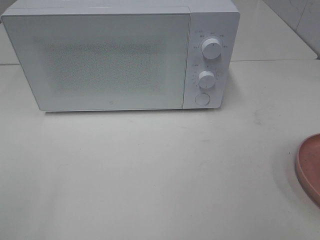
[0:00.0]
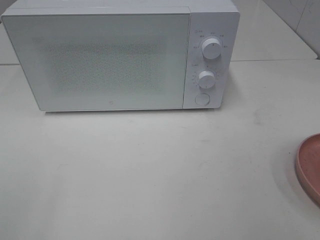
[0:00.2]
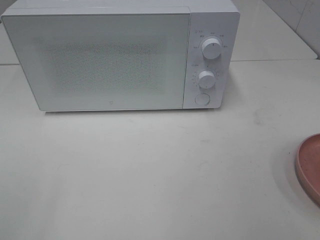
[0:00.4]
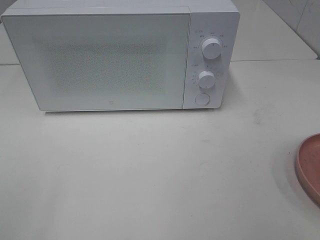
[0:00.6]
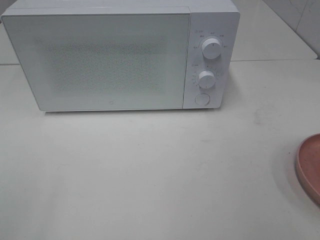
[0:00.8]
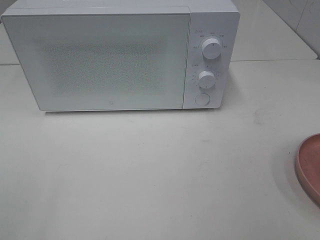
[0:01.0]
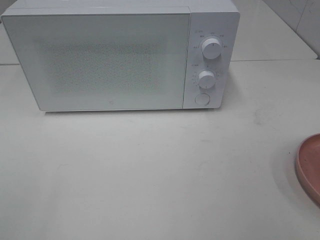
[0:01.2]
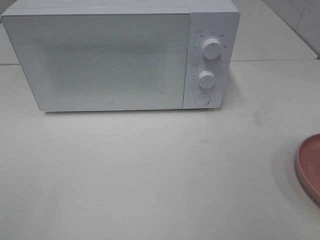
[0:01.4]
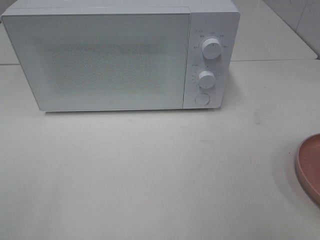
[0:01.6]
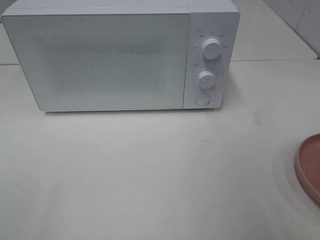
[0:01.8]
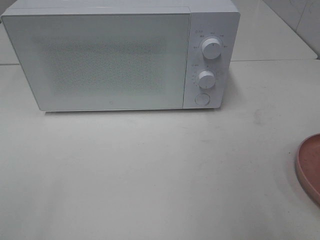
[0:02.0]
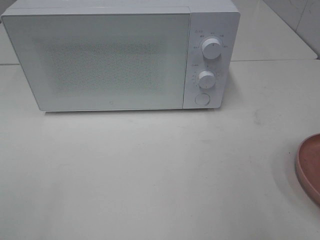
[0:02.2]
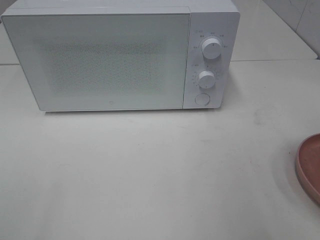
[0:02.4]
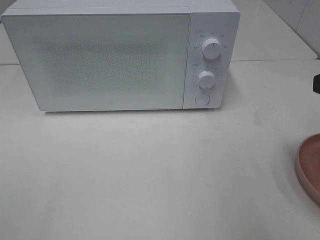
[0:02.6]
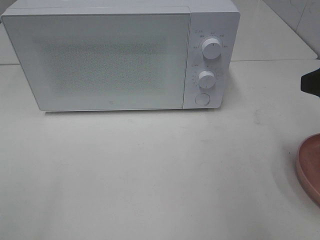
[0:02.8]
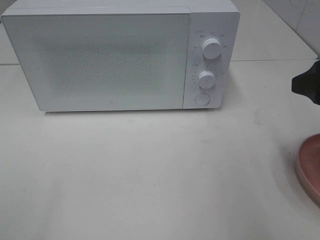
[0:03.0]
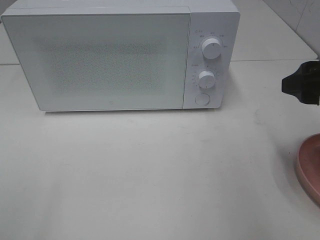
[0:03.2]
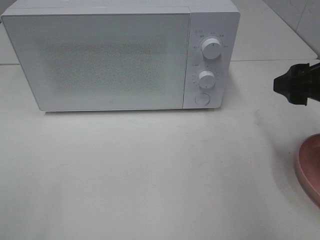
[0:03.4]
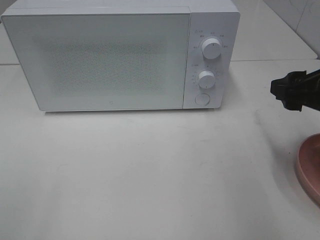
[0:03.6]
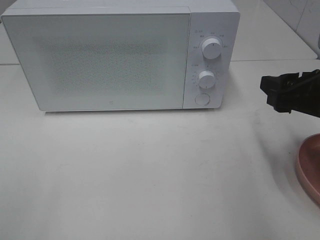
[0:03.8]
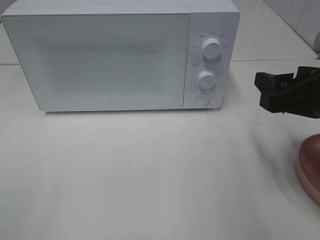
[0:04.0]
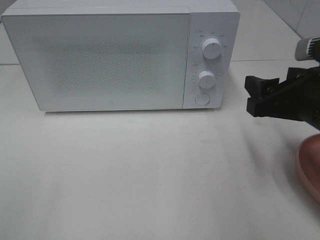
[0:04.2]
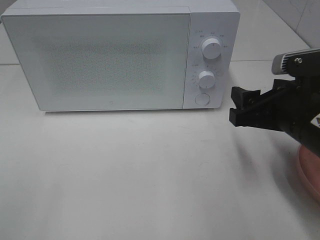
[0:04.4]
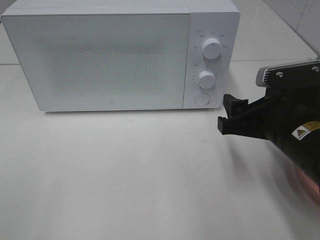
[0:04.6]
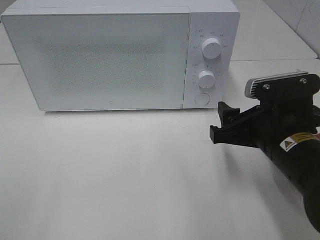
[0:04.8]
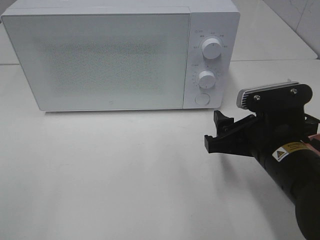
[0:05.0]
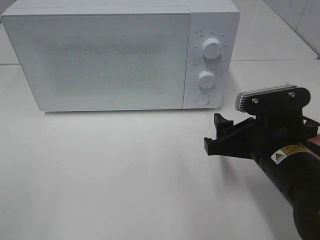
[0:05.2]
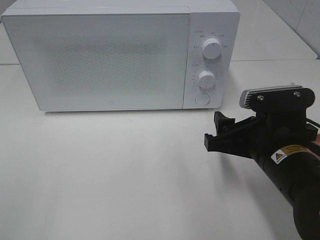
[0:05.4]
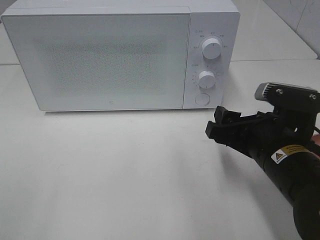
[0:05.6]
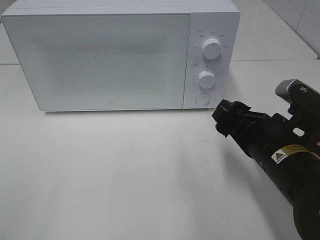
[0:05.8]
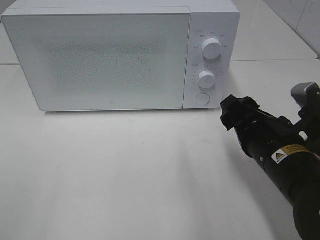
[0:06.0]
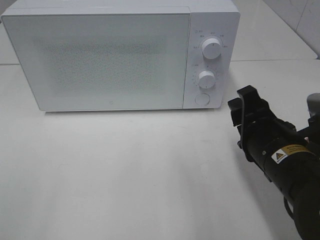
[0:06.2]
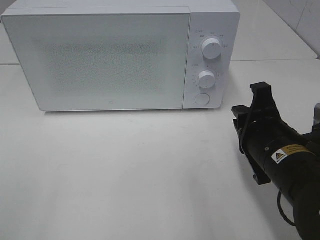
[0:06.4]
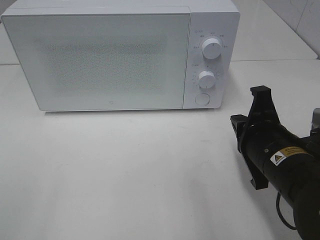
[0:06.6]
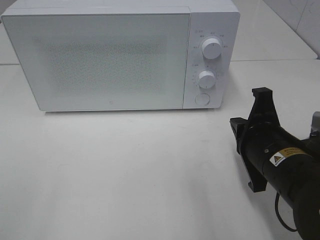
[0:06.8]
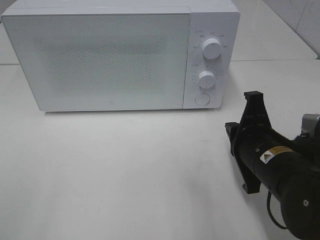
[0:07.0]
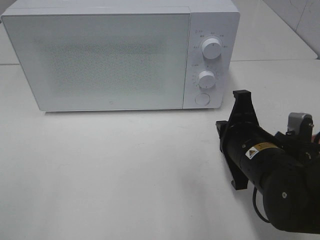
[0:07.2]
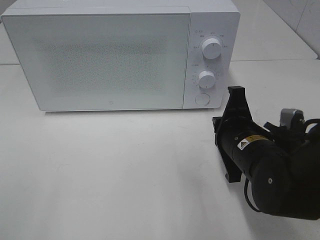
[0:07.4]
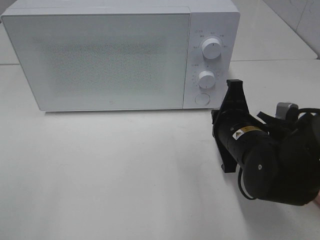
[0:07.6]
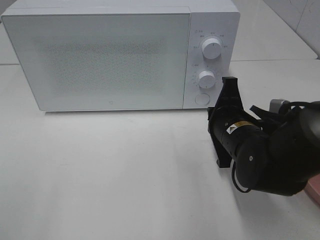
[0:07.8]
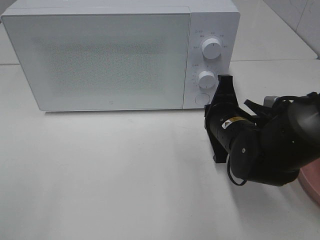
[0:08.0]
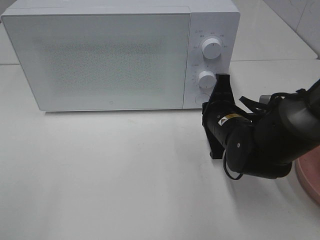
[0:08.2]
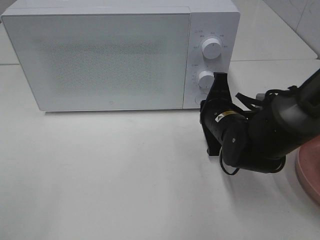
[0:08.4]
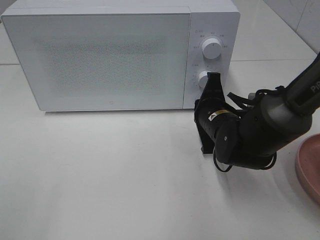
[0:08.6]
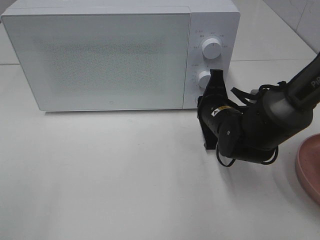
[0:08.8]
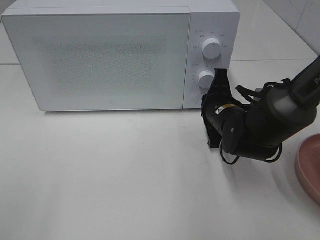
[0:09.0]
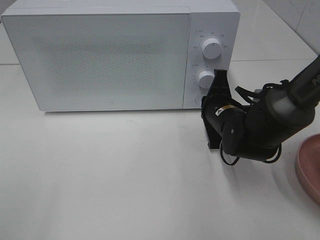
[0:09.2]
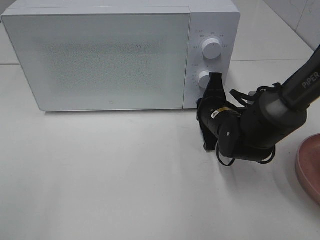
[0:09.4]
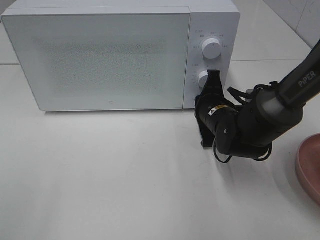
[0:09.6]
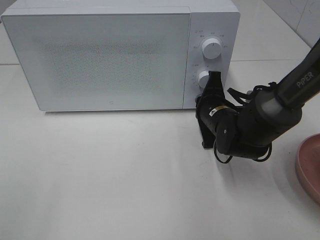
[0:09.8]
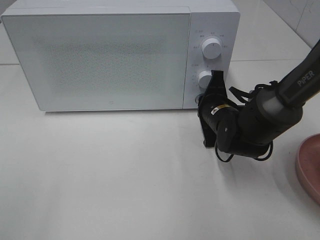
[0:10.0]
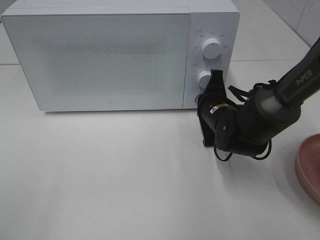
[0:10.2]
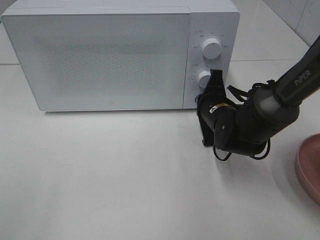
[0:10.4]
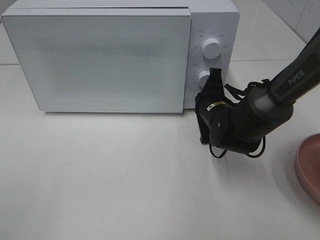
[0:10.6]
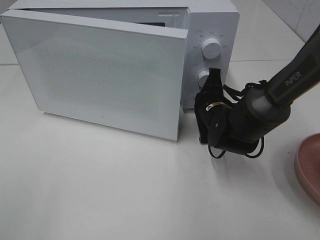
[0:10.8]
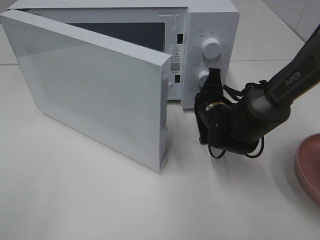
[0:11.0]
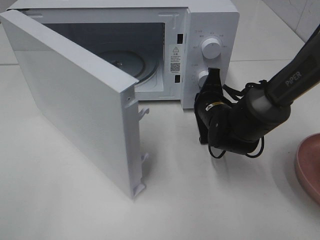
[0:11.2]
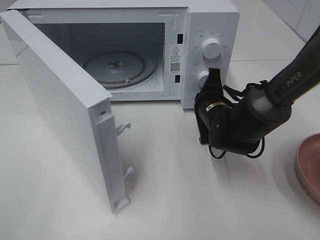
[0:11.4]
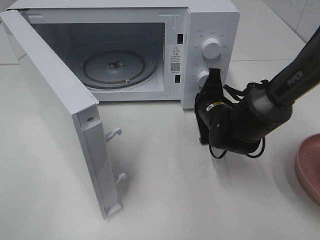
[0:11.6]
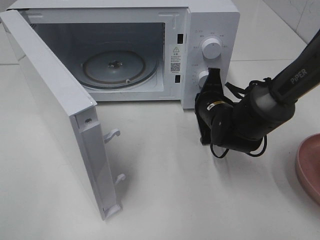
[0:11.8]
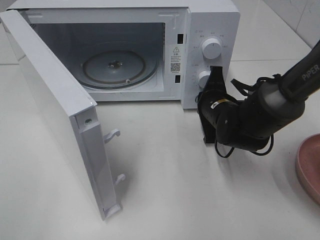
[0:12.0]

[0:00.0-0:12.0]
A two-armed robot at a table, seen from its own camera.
Task of the whole recording: Heat the burger.
0:01.6 to 0:03.0: The right gripper heads forward, covering roughly 15 cm.
0:03.0 to 0:04.4: The right gripper shifts approximately 10 cm downward and to the left.
0:04.4 to 0:06.0: The right gripper ends up approximately 5 cm from where it was.
0:06.0 to 0:07.6: The right gripper goes roughly 5 cm forward, and closes.
0:07.6 to 0:09.0: The right gripper goes roughly 10 cm forward.
0:09.0 to 0:10.4: The grippers stay close to where they were, moving slightly.

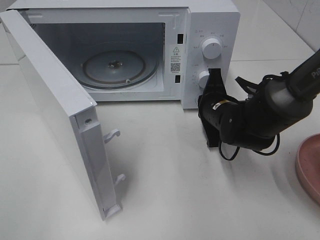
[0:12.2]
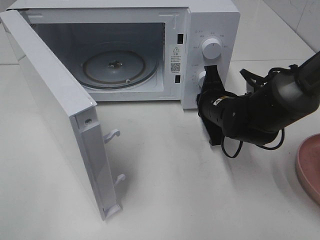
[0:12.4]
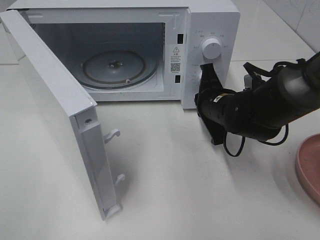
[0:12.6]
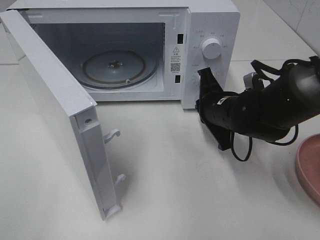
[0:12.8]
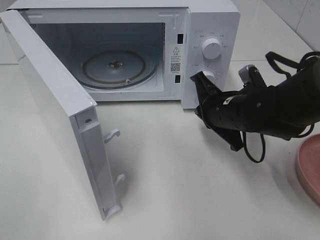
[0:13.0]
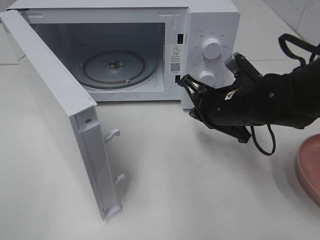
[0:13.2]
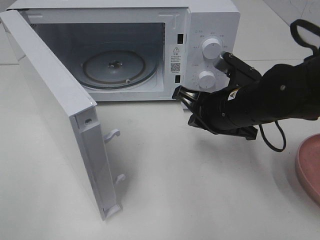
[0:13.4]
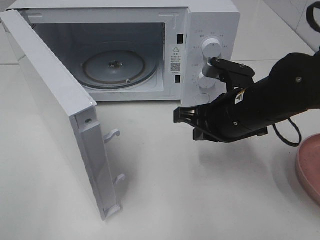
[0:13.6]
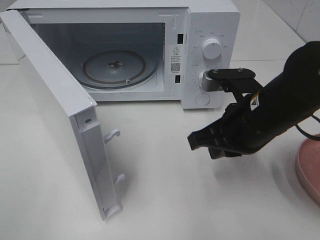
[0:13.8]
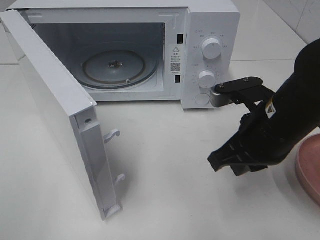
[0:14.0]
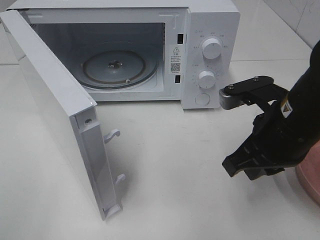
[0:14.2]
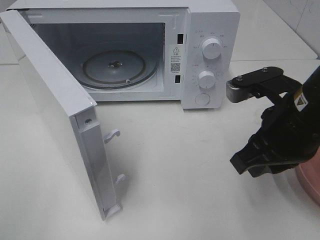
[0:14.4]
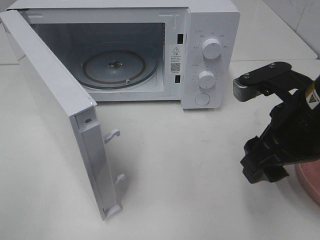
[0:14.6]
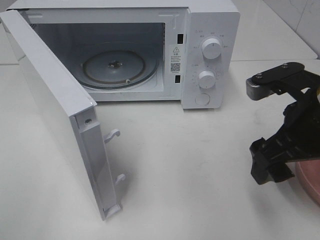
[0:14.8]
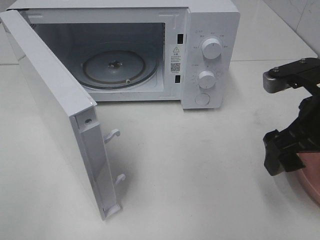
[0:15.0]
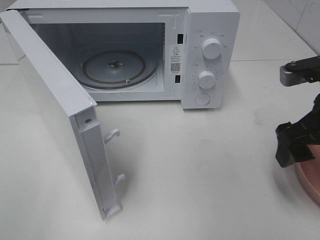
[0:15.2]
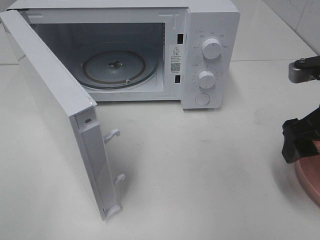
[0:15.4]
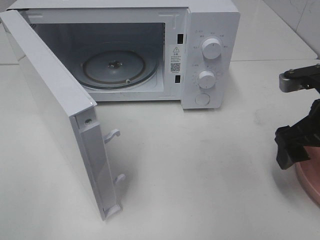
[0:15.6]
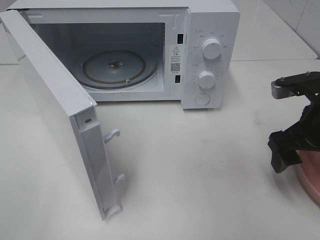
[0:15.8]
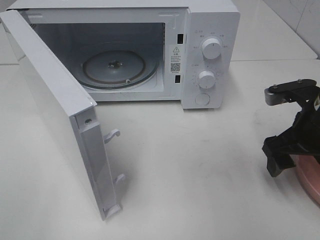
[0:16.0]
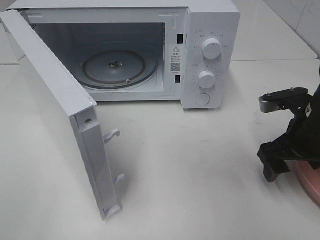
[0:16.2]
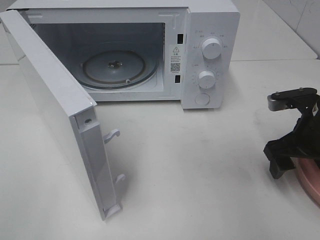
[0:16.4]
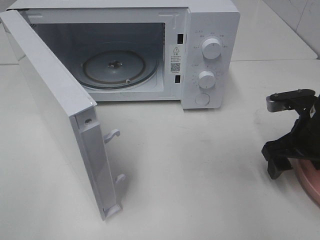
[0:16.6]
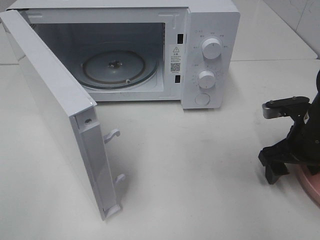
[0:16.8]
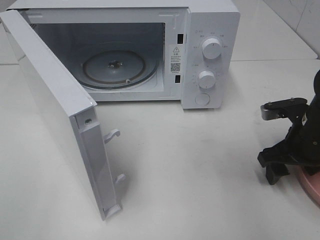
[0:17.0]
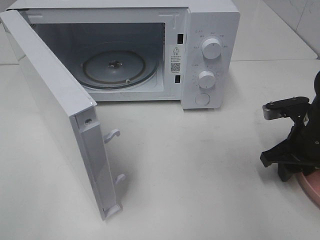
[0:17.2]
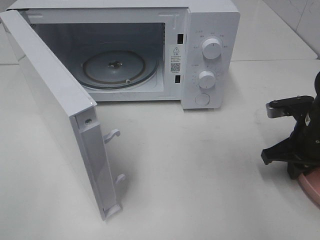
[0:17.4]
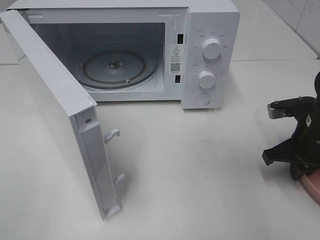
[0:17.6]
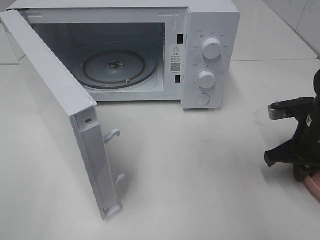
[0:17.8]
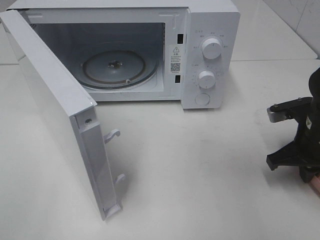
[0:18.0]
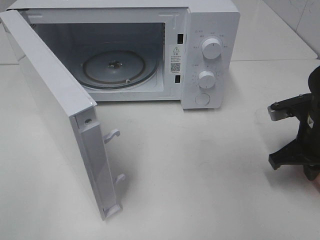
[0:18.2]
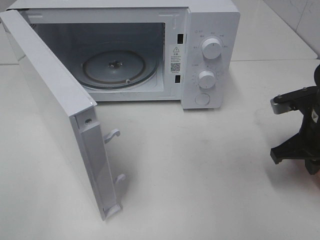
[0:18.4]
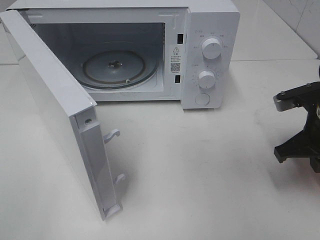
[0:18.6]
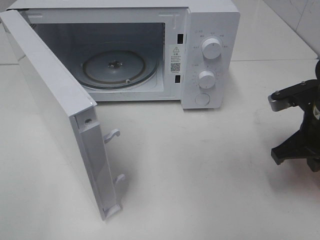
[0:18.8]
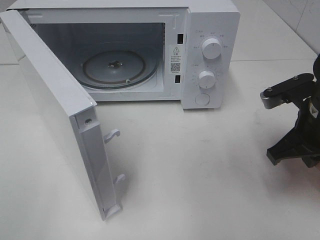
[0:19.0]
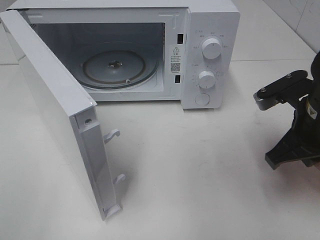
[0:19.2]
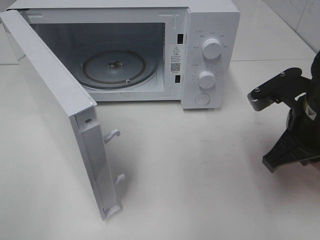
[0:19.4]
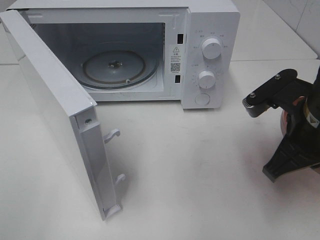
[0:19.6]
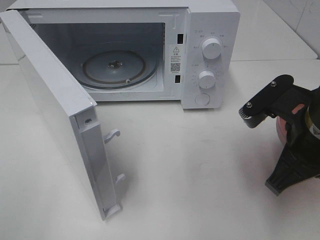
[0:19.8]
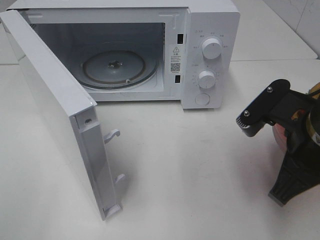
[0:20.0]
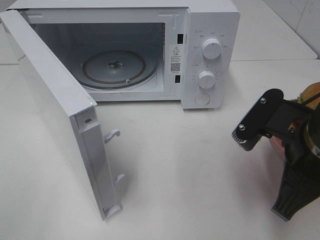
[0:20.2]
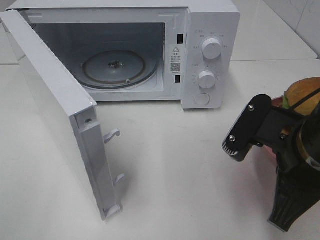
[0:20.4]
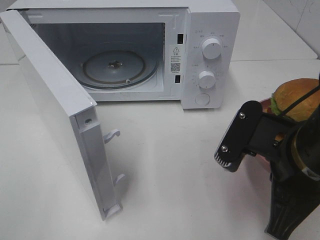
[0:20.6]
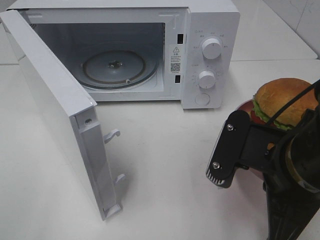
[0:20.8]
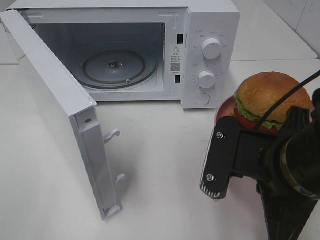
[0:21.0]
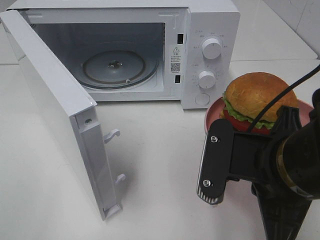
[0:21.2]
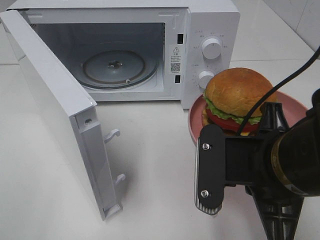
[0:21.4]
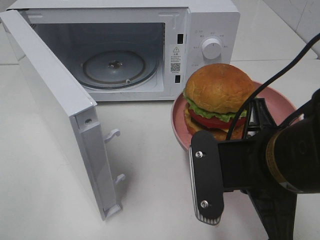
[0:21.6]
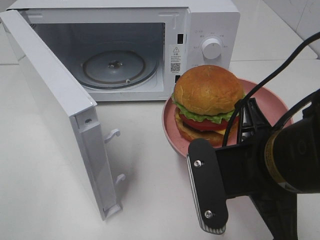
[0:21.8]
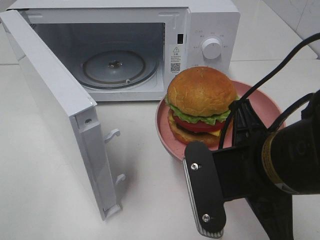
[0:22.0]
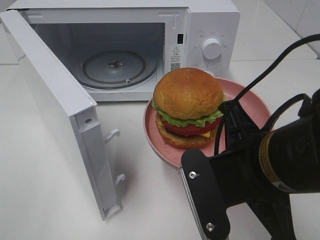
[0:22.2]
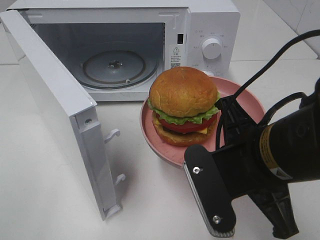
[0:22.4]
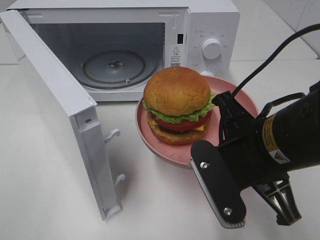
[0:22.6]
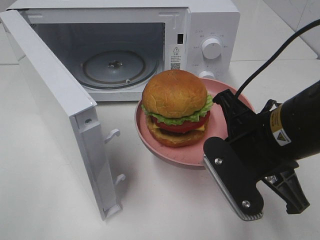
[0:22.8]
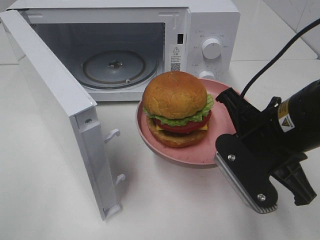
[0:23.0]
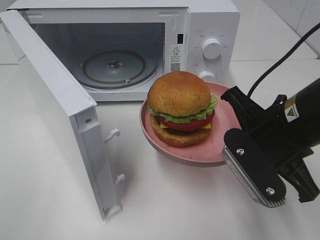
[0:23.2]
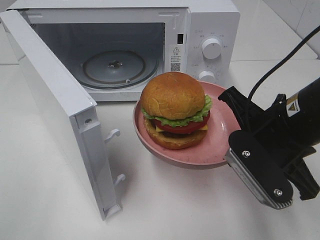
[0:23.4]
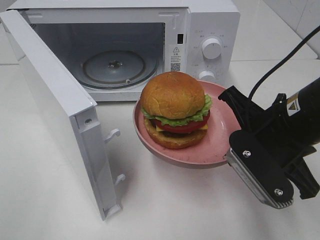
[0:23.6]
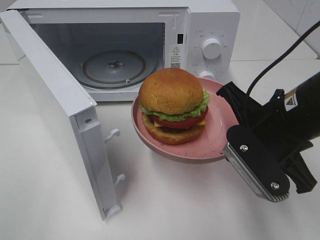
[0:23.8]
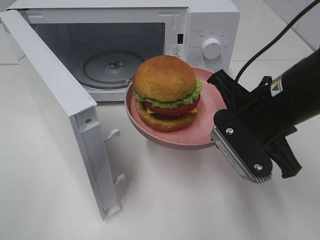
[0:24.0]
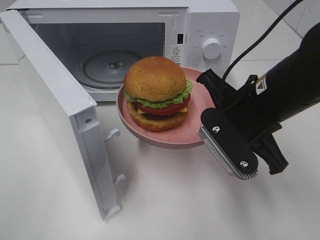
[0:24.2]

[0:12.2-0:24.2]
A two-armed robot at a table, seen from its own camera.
Task of the whole recording: Heat the burger.
Step, 0:12.8 to 0:18.0: Right hand: grab the plate with the hamburger.
0:12.2 to 0:13.8: The right gripper shifts about 15 cm backward and upward.
0:13.8 to 0:15.2: The right gripper goes roughly 10 cm to the right, and opens its fingers.
0:15.2 to 0:16.6: The right gripper travels downward by approximately 10 cm.
0:16.6 to 0:18.2: The right gripper closes its fingers.
0:18.2 to 0:19.8: The right gripper travels backward, to the left and upward by about 10 cm.
0:19.8 to 0:21.2: The right gripper travels to the left and backward by about 10 cm.
0:22.6 to 0:24.2: The right gripper heads forward, covering roughly 5 cm.
